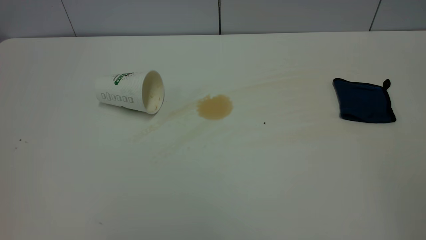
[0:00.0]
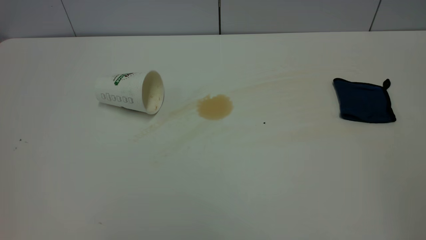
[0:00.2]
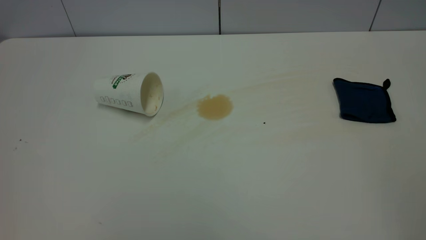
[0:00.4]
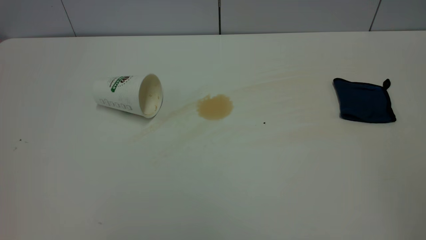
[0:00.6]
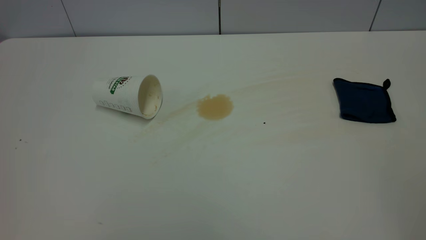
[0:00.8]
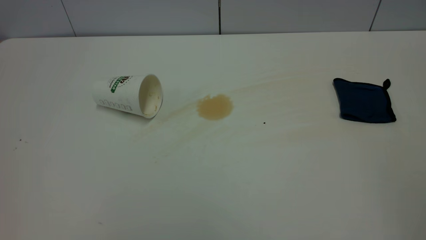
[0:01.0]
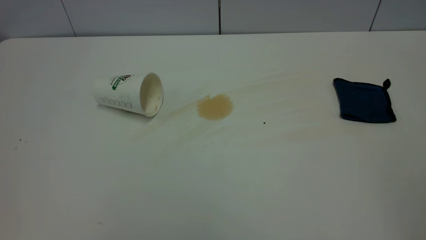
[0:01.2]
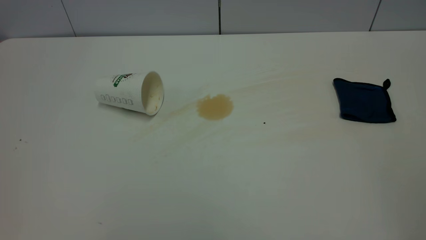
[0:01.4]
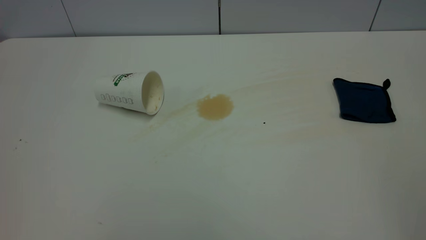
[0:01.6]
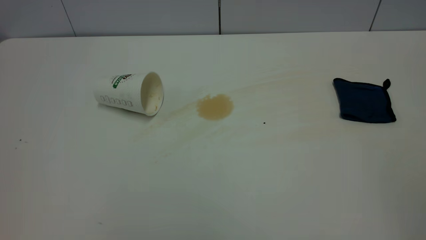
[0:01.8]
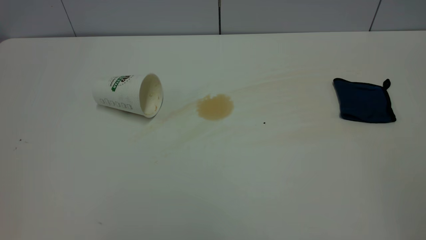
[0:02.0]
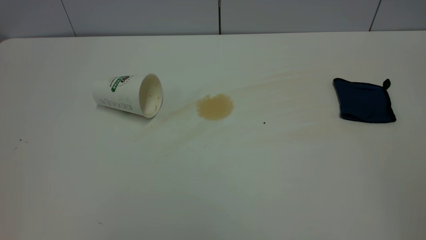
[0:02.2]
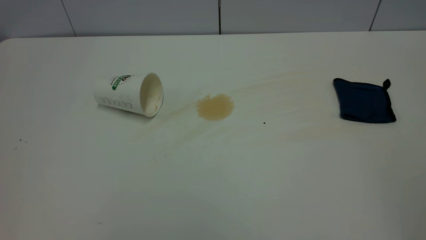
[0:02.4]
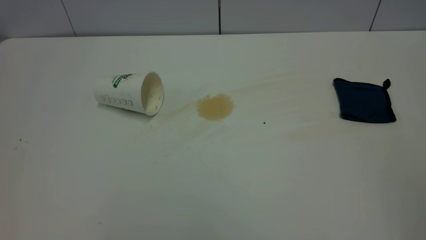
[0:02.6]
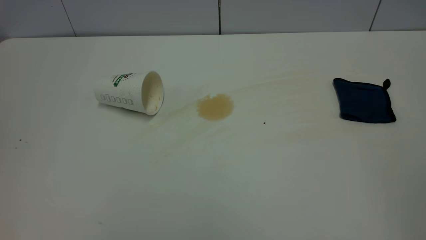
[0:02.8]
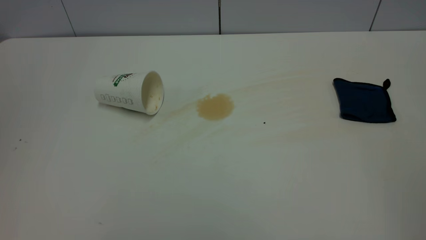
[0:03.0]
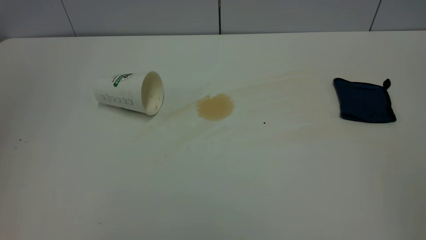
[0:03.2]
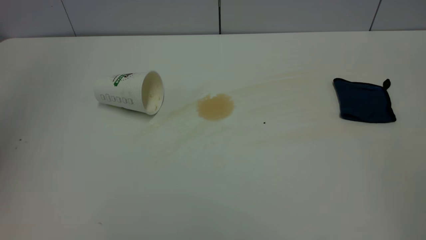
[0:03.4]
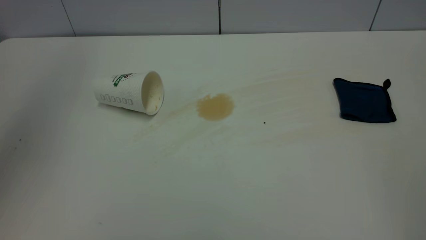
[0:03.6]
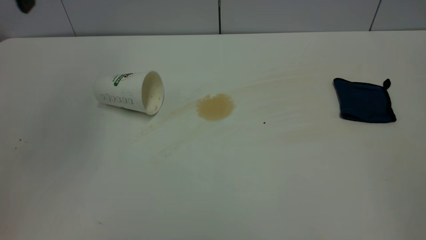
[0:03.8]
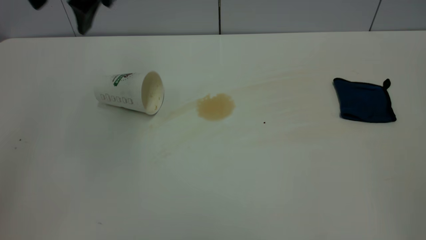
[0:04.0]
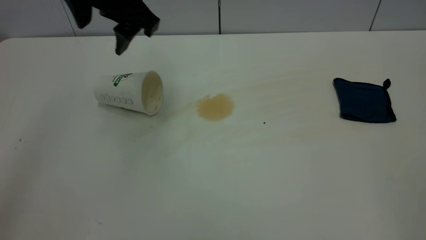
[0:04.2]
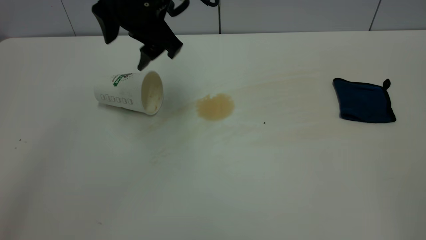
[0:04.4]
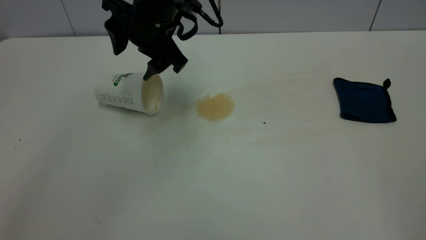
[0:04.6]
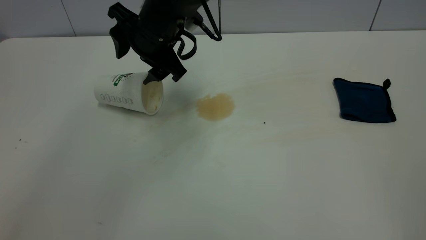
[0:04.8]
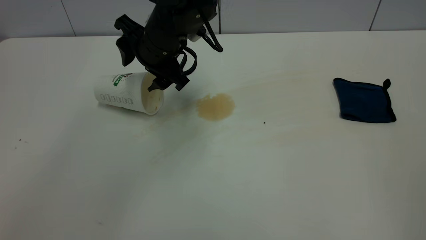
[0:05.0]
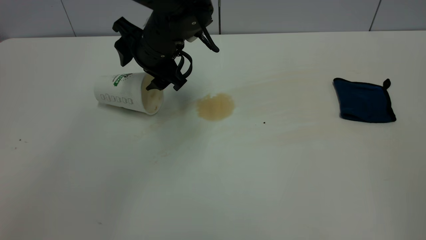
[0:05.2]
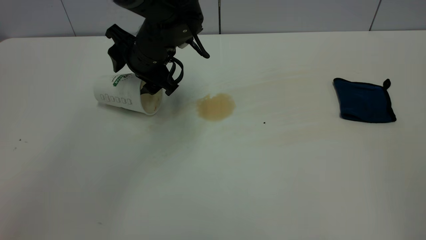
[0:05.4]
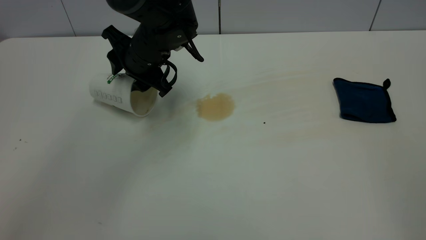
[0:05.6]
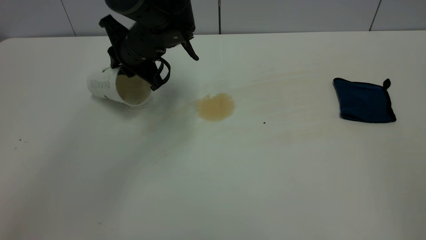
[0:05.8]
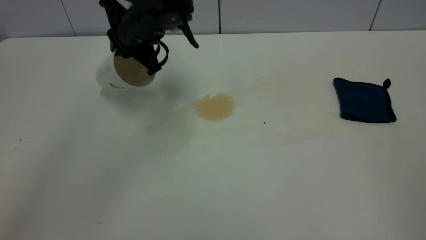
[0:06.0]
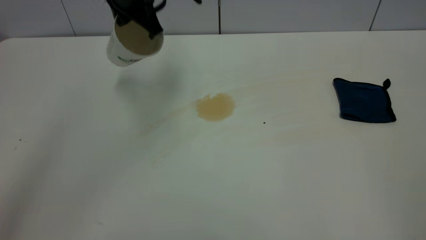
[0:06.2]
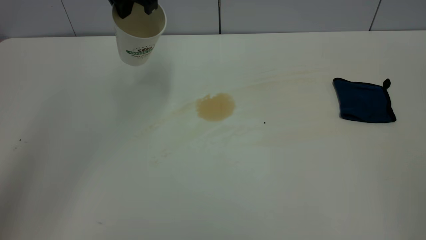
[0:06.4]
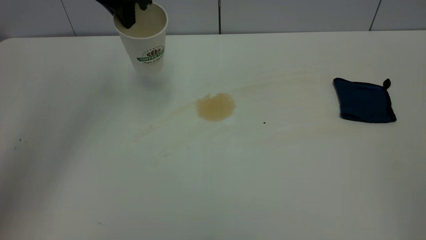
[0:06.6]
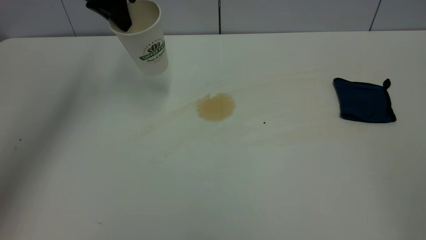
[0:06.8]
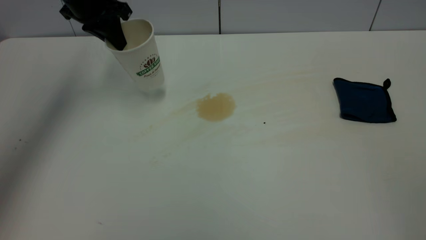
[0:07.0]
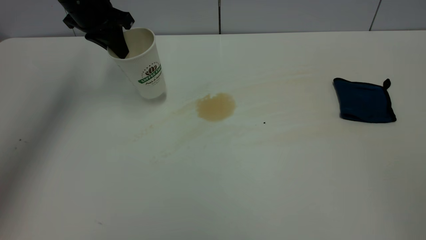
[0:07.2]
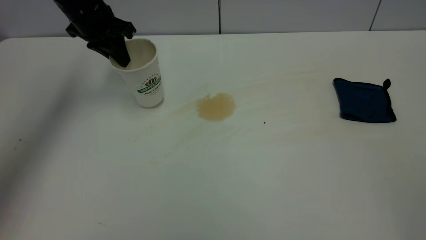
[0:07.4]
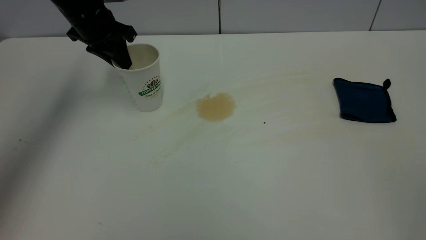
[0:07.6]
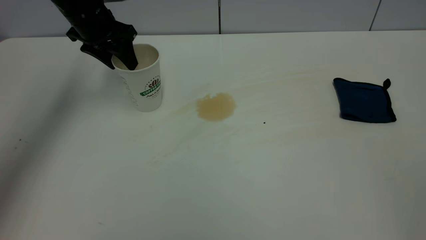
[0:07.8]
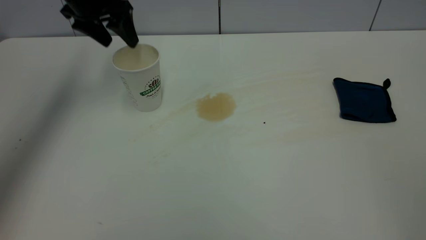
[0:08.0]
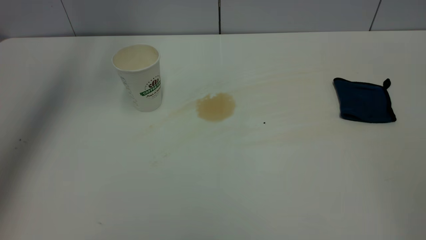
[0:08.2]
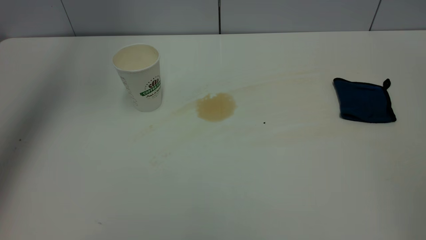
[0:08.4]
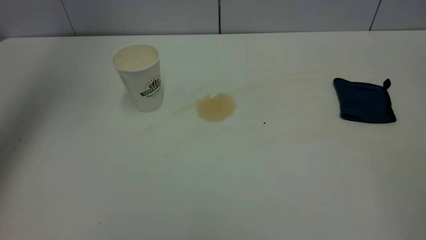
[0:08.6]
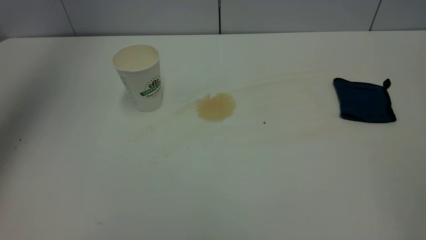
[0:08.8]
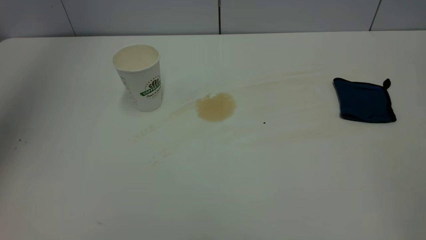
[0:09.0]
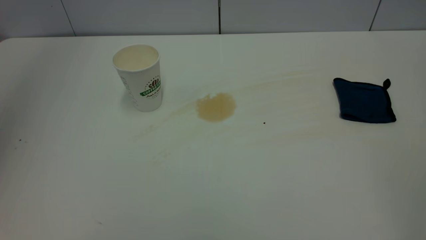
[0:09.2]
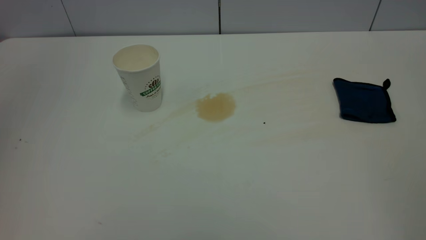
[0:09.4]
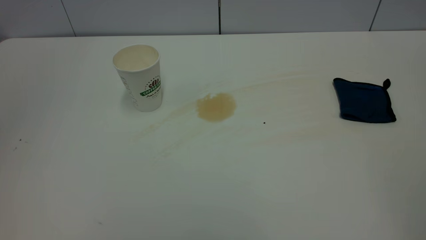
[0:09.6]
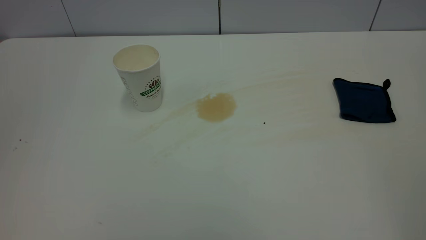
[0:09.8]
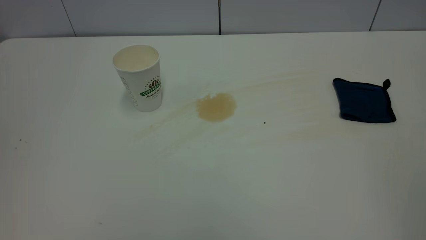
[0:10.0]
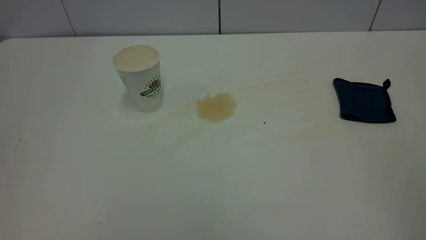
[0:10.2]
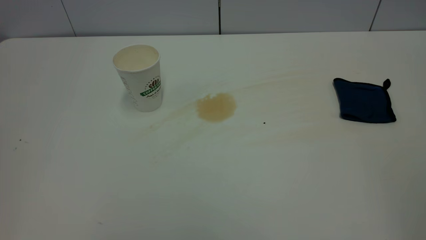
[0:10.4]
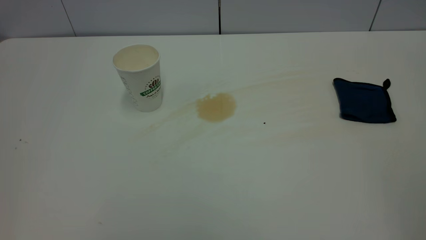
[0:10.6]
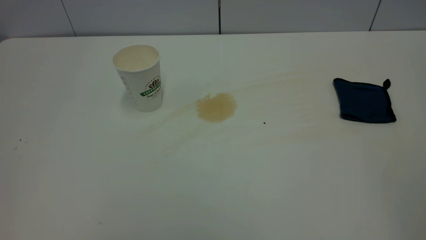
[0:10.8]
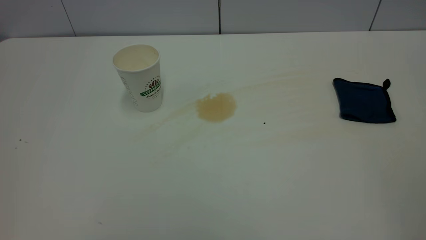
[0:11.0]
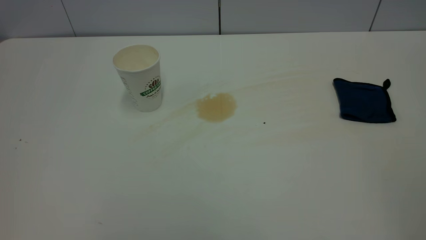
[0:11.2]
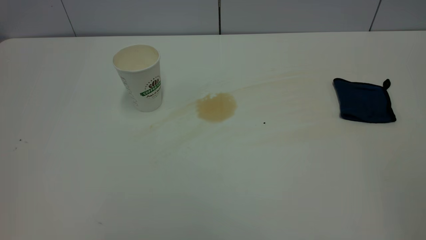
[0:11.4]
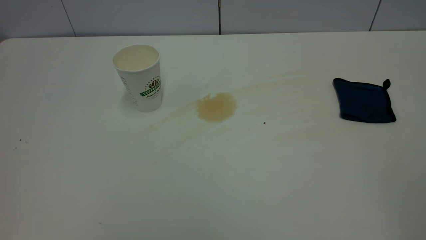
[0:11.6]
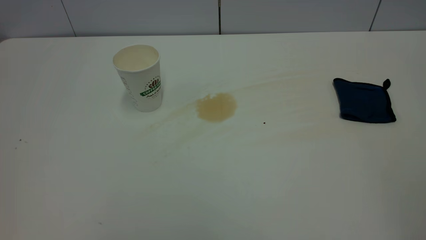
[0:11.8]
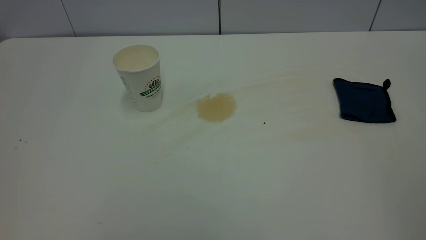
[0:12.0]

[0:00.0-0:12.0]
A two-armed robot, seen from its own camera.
Task of the whole recording: the left gripper pick up the fallen cup and place it upright, the right gripper grasp the blue rag and wipe the tea stain on the table, the right gripper put the blue rag back in its original position.
Step, 0:00.0 to 0:07.8: Stand the paper cup upright.
0:00.0 to 0:01.6: Both grippers stay put.
0:03.0 to 0:04.4: The left gripper goes roughly 40 cm forward, to the right and downward.
0:04.4 to 0:06.0: The left gripper goes some 5 cm forward, and closes up.
0:06.0 to 0:07.6: The left gripper goes some 10 cm to the left.
0:07.6 to 0:09.0: The left gripper is displaced upward and backward by approximately 35 cm, and opens its fingers.
0:09.0 to 0:10.4: The left gripper is displaced backward and downward by about 30 cm.

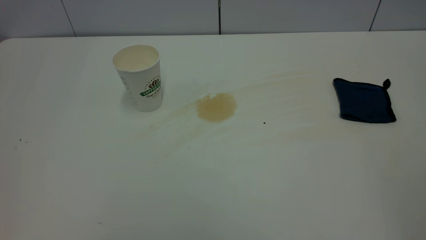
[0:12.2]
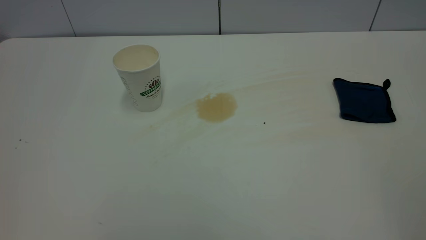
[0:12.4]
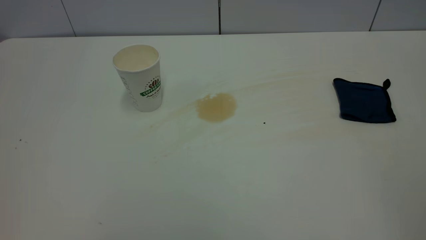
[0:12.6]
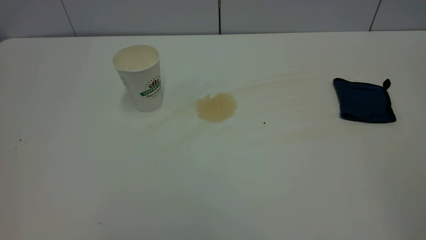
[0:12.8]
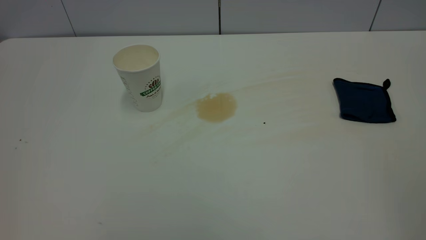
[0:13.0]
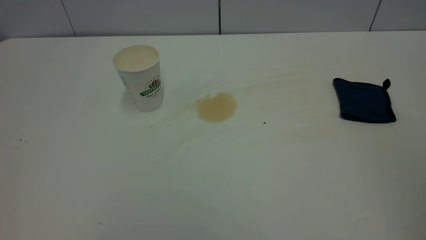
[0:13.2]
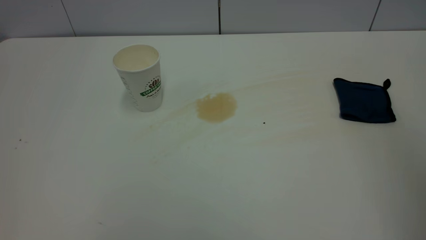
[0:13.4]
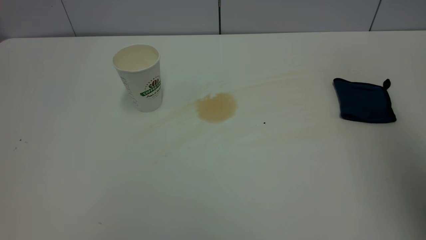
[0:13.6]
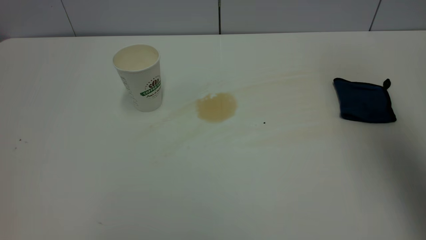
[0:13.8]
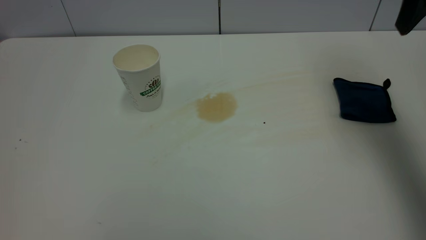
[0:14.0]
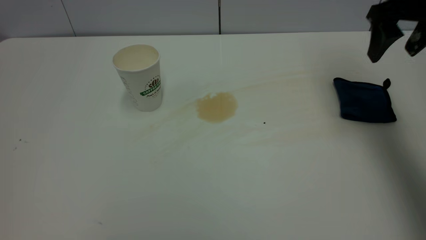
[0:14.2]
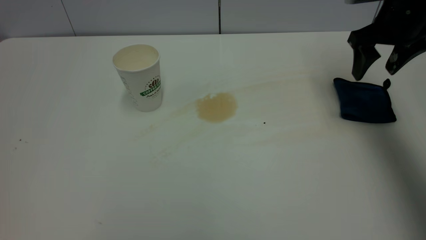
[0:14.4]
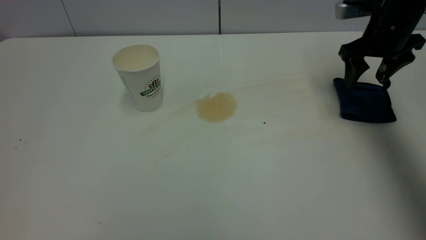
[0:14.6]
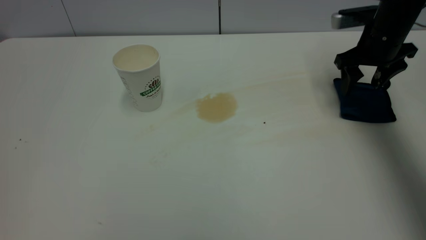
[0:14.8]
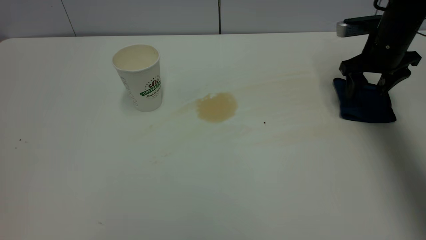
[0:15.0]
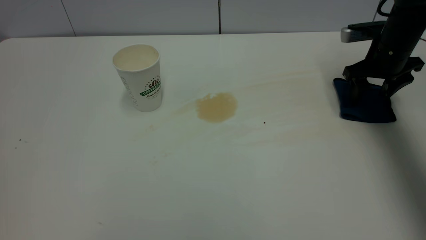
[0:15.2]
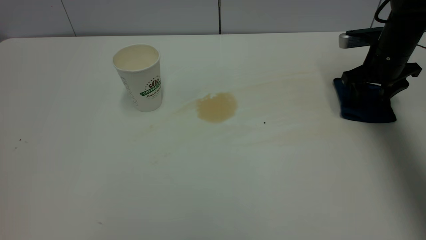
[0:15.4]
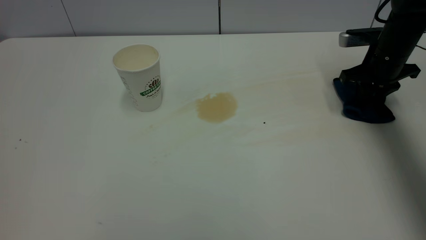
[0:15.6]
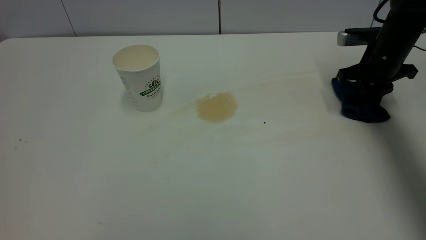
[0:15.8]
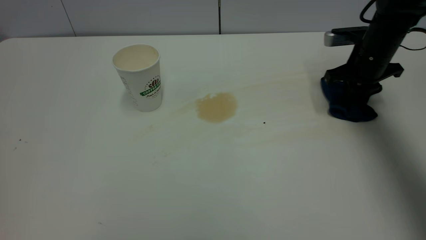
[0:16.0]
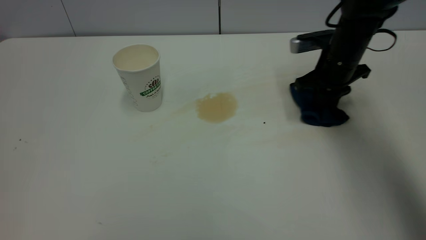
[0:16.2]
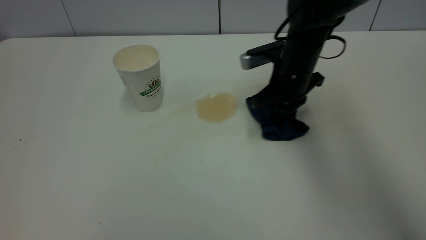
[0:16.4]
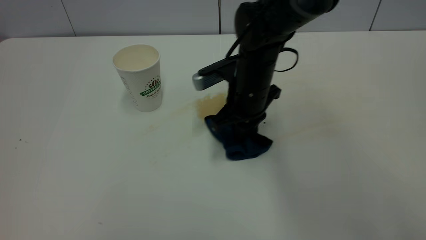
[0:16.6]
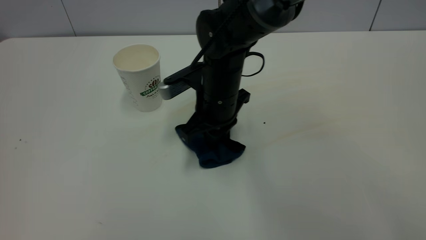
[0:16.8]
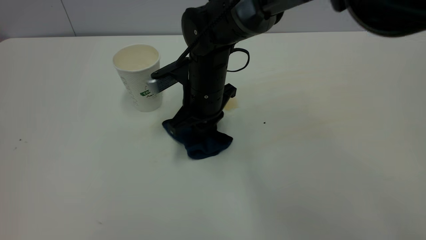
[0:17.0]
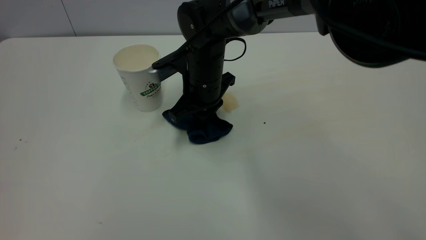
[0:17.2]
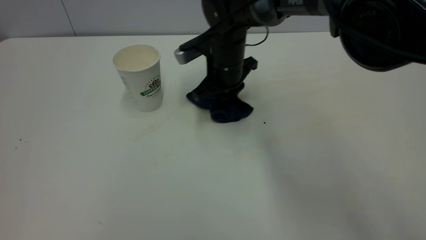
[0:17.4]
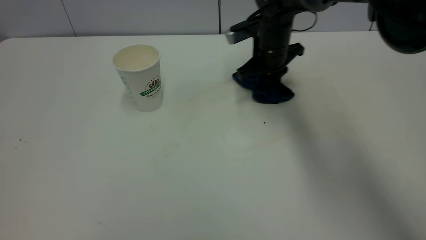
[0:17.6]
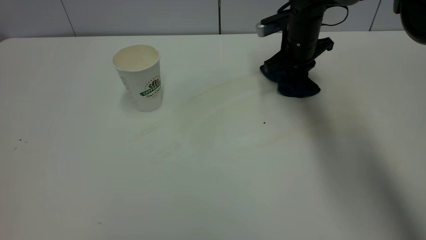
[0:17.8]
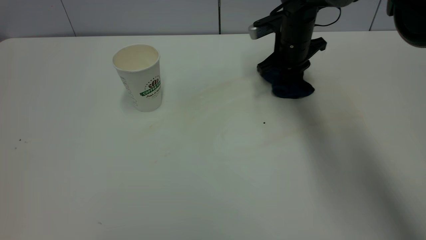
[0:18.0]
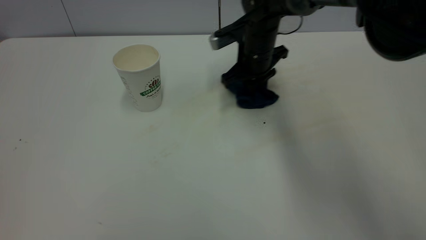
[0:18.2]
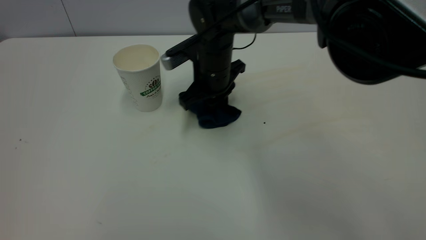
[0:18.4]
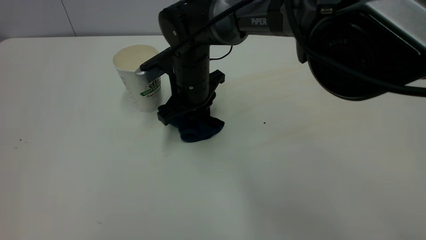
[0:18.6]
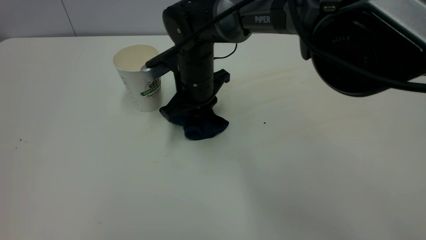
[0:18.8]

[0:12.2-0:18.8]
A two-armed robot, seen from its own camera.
Task of the whole recording: the left gripper pick up the fallen cup and place it upright, the right gripper grasp the blue rag and wipe the tea stain on the table, the right gripper put the blue rag back in its original position.
0:12.2 to 0:13.8: The right gripper shifts approximately 30 cm forward.
0:13.8 to 0:15.4: The right gripper is displaced downward and forward by some 30 cm.
0:15.4 to 0:17.2: The right gripper shifts about 30 cm to the left, and closes its fingers.
0:17.2 to 0:18.8: The right gripper moves some 20 cm to the right and comes back.
